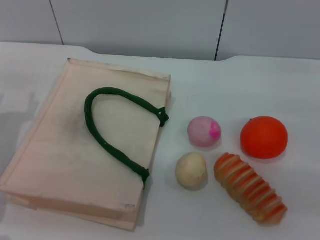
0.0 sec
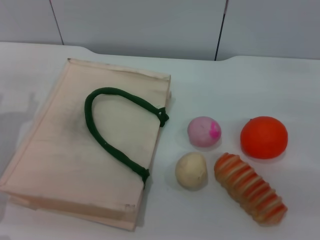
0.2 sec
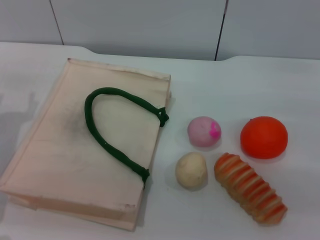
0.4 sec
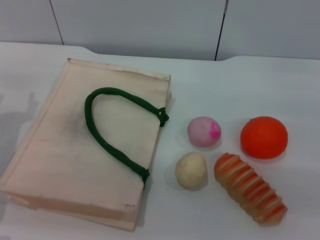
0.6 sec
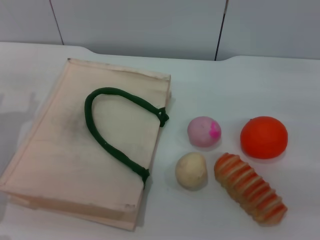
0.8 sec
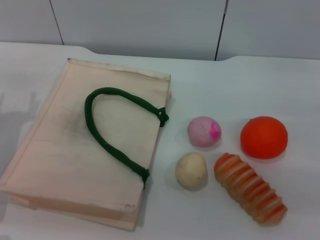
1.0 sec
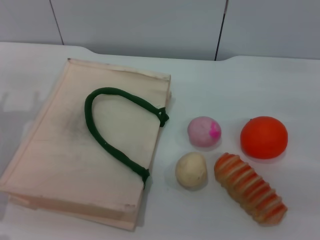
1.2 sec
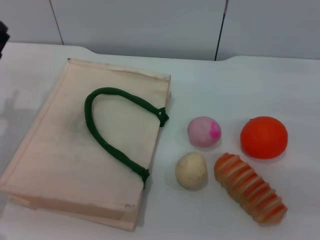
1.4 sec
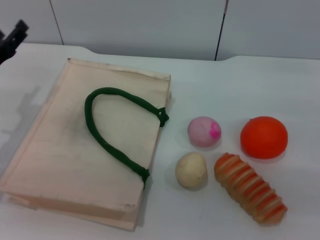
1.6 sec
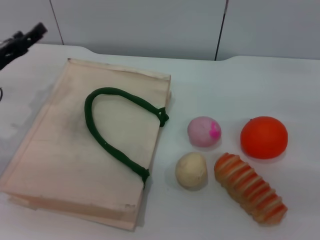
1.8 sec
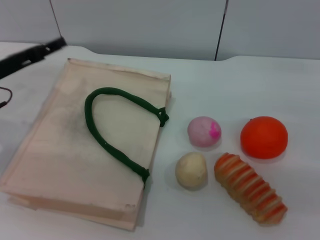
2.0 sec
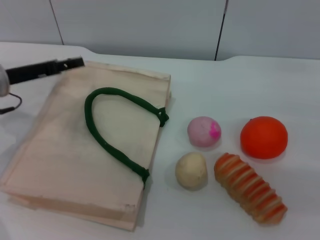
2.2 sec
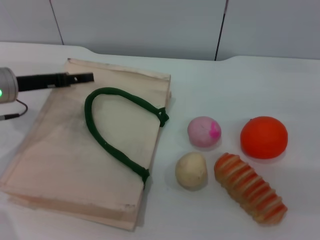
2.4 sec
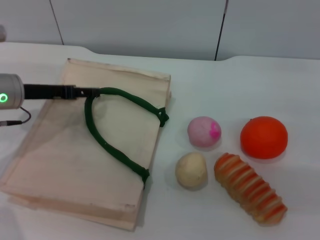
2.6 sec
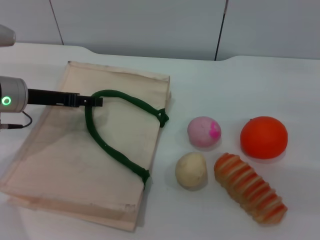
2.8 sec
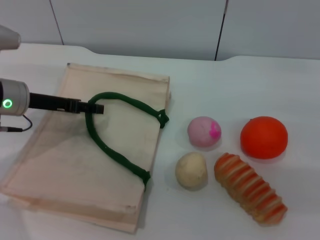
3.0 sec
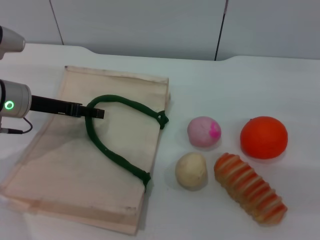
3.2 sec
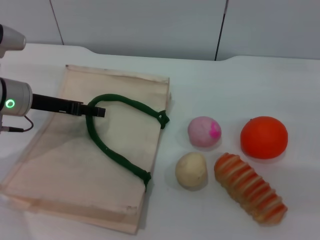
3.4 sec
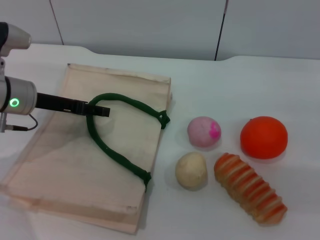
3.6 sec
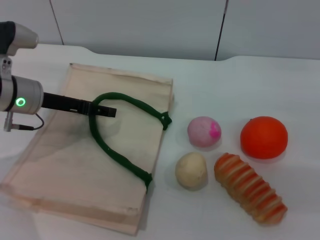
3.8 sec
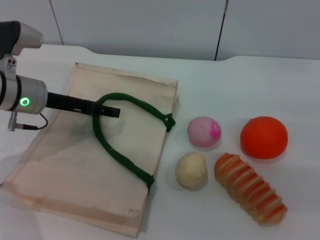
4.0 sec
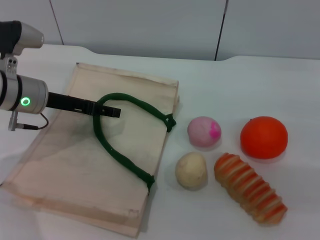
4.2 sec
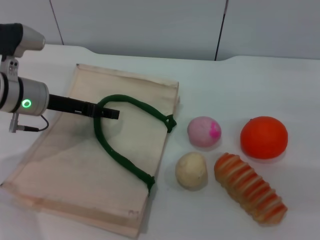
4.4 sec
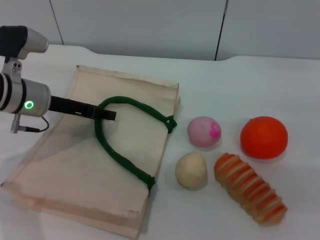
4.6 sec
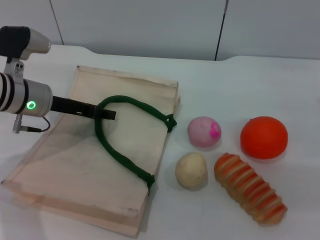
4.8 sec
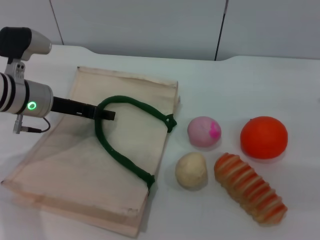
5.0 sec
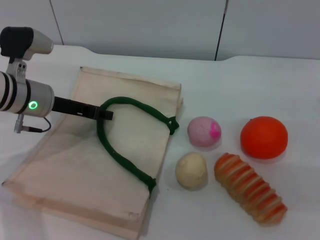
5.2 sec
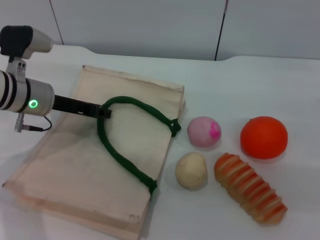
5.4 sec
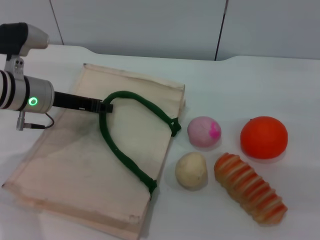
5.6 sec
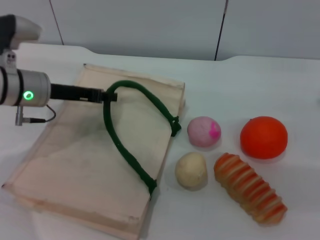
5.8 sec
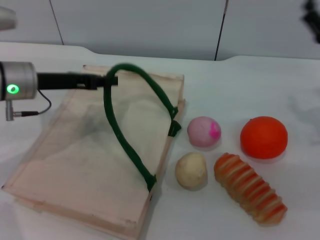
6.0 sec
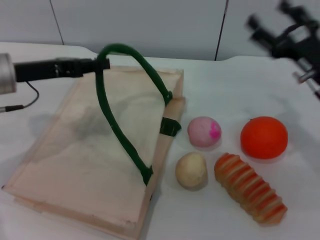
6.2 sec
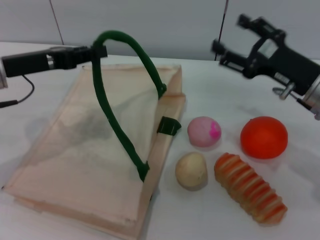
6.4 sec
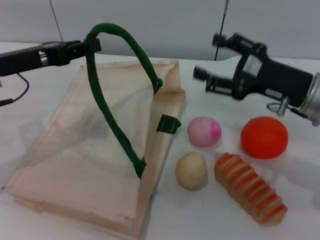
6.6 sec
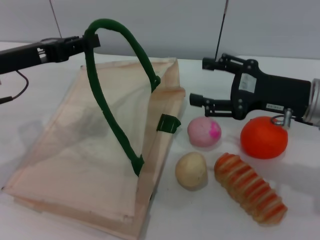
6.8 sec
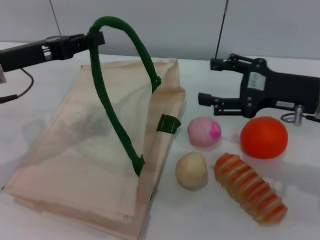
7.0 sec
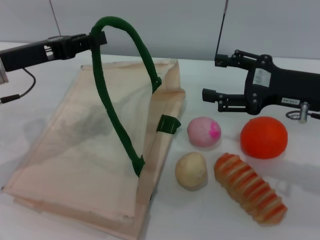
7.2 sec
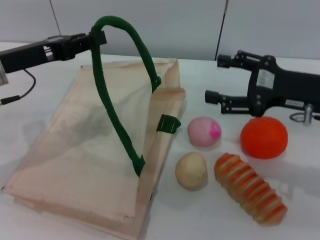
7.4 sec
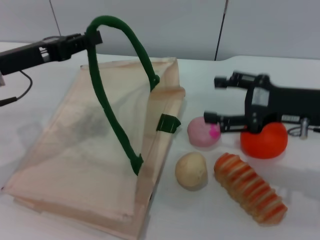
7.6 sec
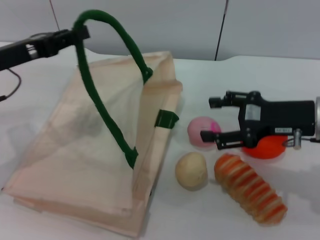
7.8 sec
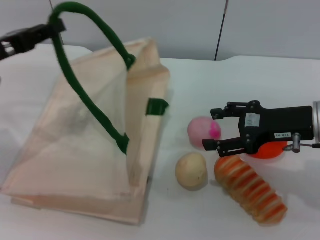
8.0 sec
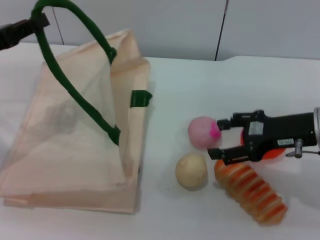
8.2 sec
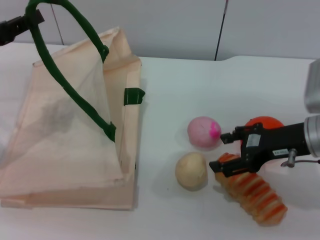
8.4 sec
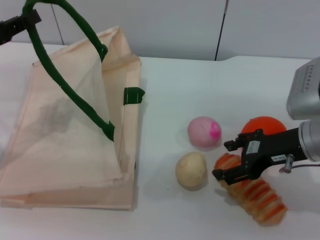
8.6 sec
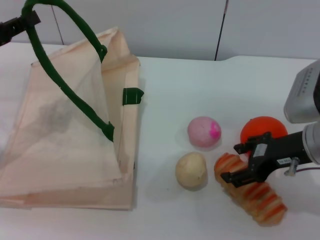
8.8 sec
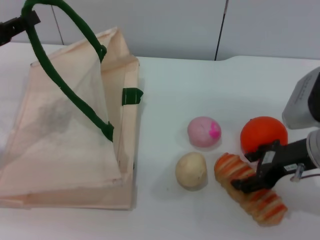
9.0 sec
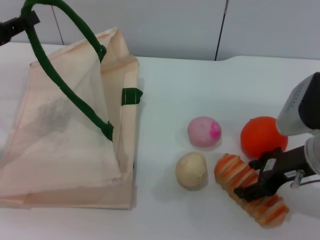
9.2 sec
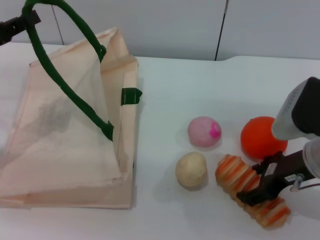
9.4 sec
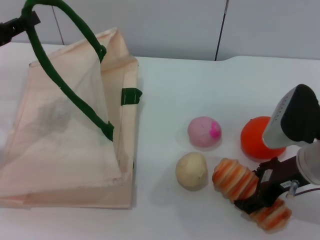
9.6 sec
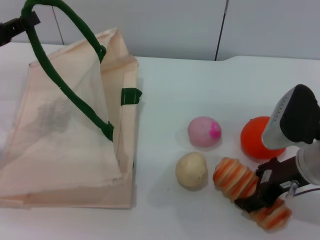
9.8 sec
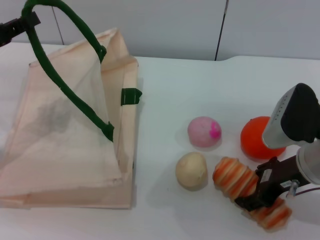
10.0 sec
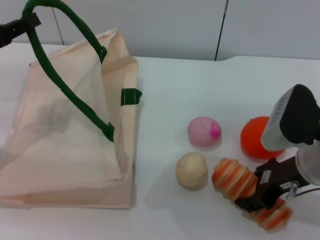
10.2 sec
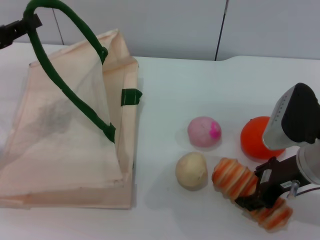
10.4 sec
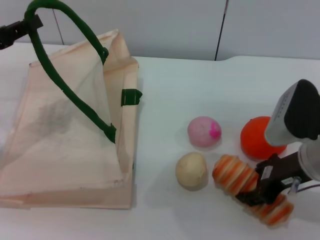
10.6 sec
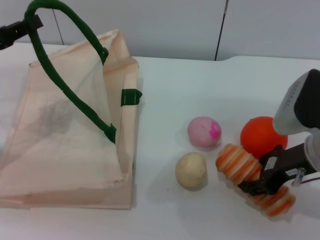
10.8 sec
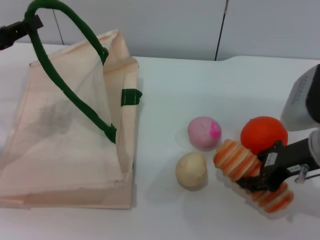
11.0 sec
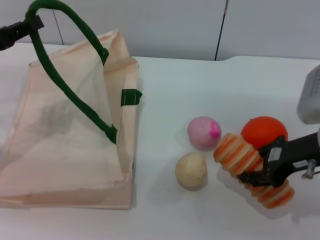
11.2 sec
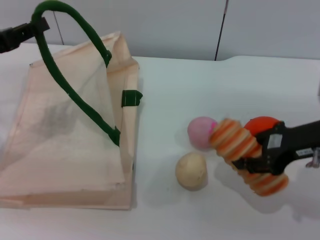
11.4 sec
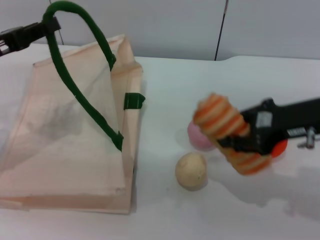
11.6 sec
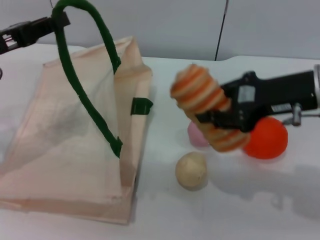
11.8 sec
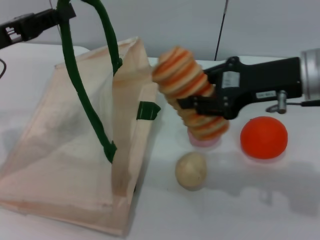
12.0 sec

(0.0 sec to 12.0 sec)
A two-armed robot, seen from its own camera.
Task of the whole recording: pick up the bread and egg yolk pastry from the table and place it in the white handbag.
Step, 0.0 sec - 6.0 sec: Lift the woven bag with the left gripper to open it.
Step, 6.2 sec - 10.8 sec: Pick up the bread with the right gripper.
1.6 sec - 3.0 sec: The left gripper changes place by approximately 5 cm.
3.0 sec - 4.4 sec: There are only small adjustments of the grippers.
4.4 sec - 6.0 sec: The left gripper closes.
6.0 sec - 7.6 sec: The right gripper shifts by some 5 cm.
7.6 sec - 9.0 sec: The left gripper goes roughly 5 cm to the left.
9.0 sec - 10.4 sec: The grippers move only a little.
10.4 sec - 12.0 sec: The right gripper shifts approximately 10 cm upward, and closes up.

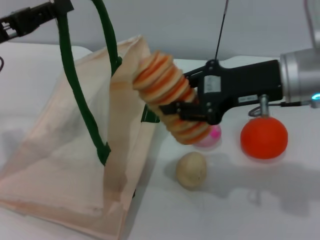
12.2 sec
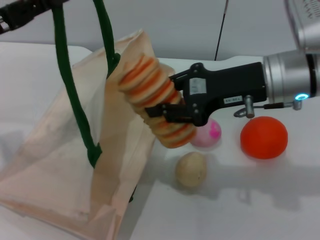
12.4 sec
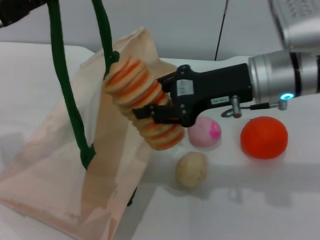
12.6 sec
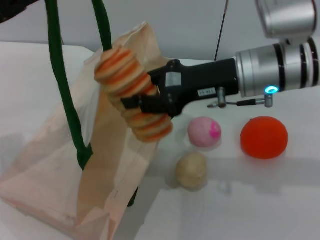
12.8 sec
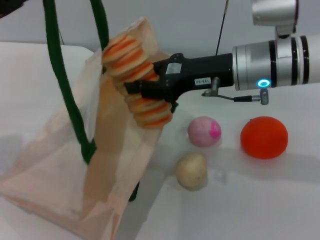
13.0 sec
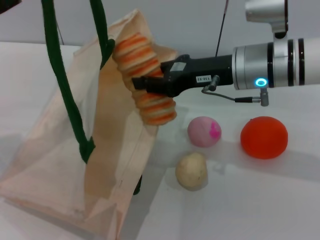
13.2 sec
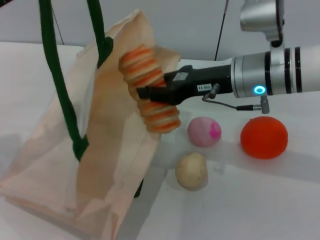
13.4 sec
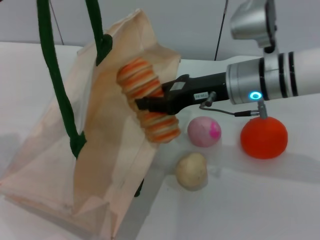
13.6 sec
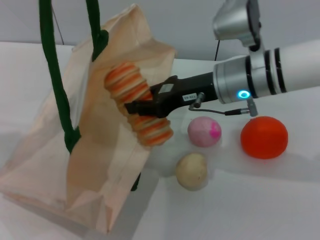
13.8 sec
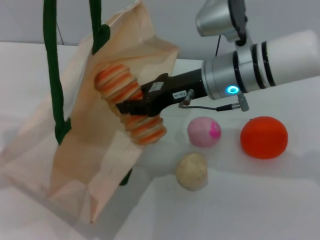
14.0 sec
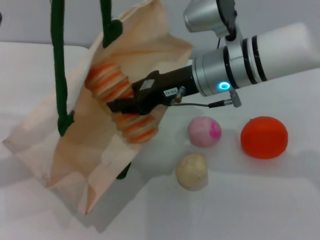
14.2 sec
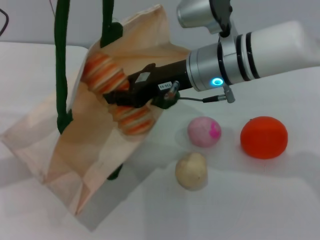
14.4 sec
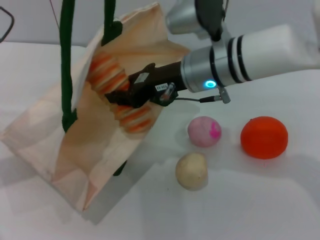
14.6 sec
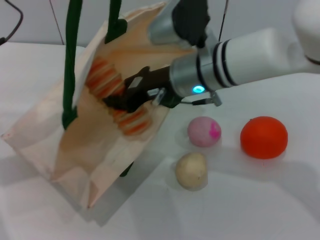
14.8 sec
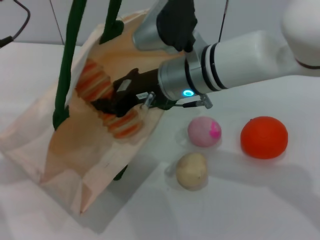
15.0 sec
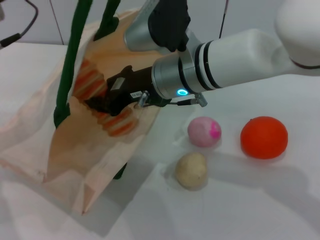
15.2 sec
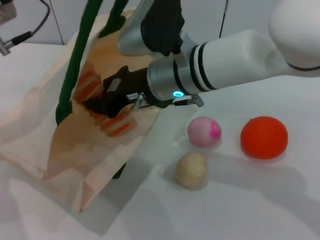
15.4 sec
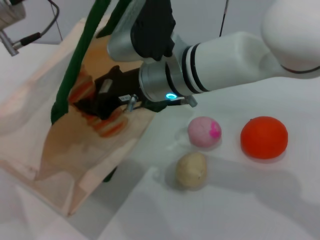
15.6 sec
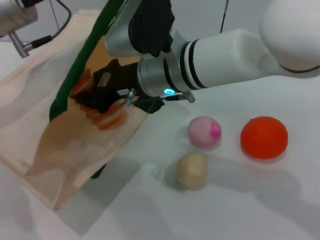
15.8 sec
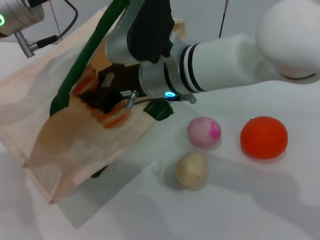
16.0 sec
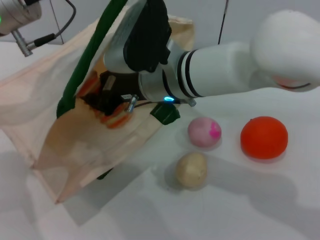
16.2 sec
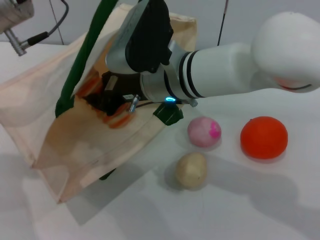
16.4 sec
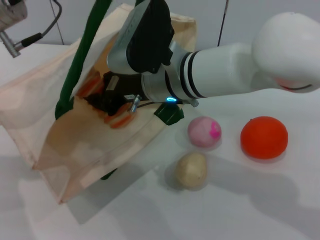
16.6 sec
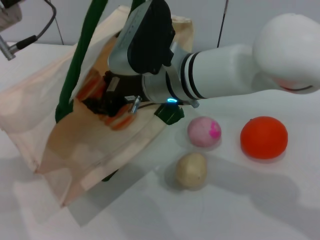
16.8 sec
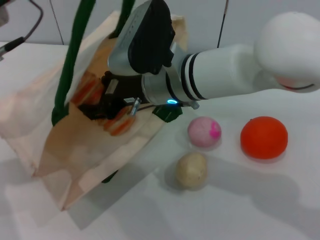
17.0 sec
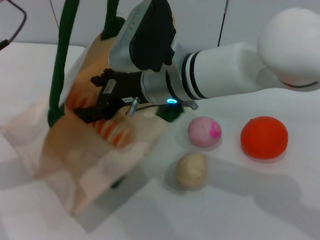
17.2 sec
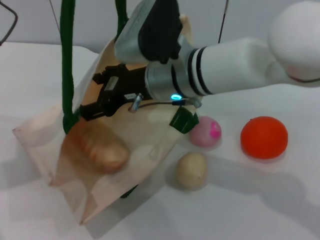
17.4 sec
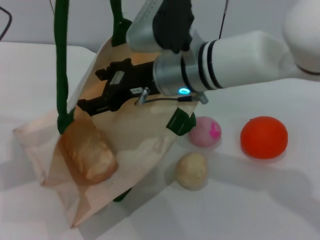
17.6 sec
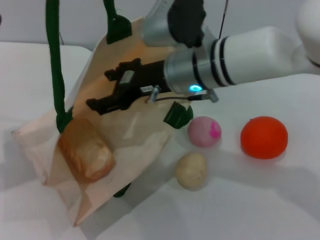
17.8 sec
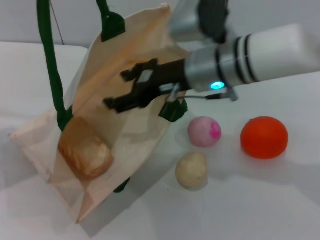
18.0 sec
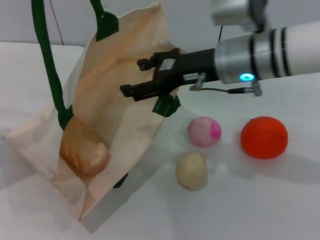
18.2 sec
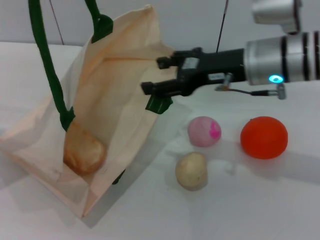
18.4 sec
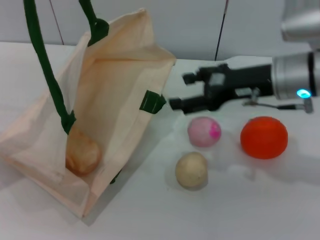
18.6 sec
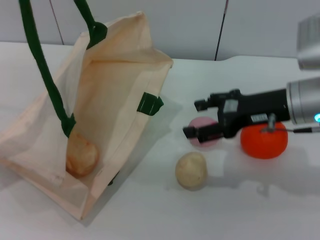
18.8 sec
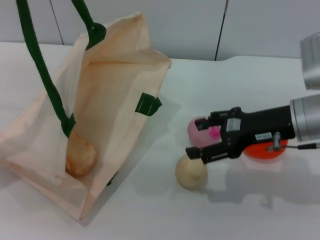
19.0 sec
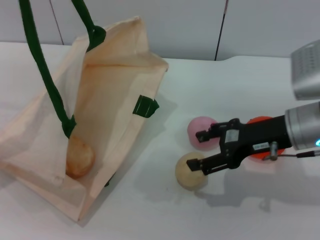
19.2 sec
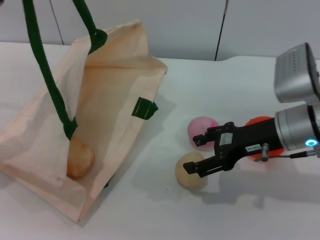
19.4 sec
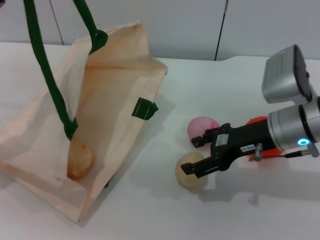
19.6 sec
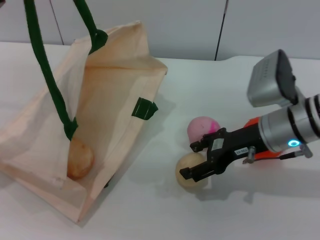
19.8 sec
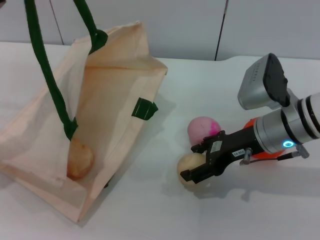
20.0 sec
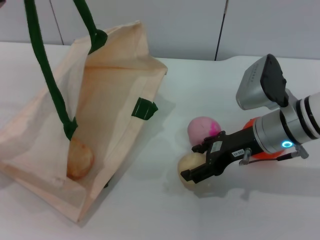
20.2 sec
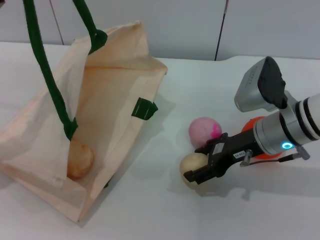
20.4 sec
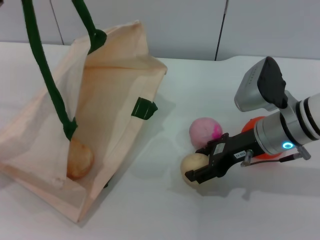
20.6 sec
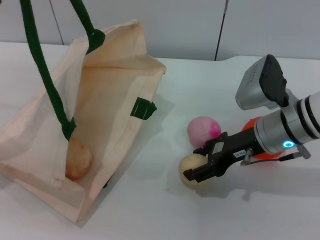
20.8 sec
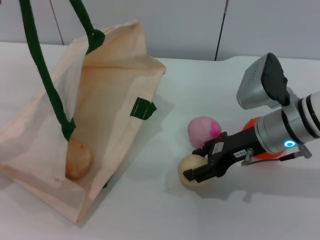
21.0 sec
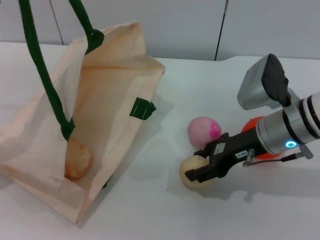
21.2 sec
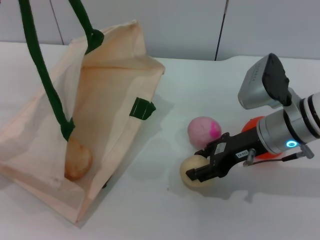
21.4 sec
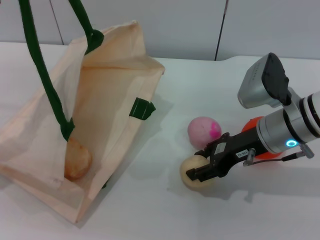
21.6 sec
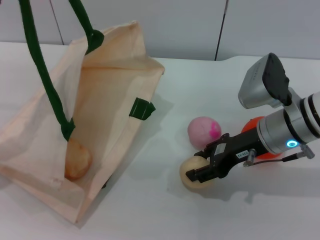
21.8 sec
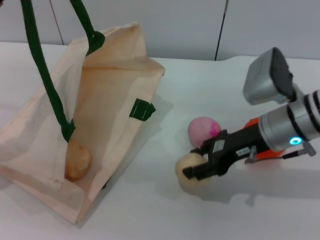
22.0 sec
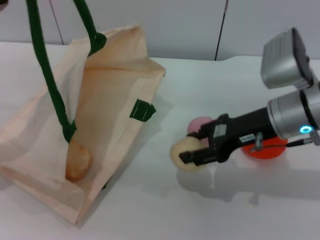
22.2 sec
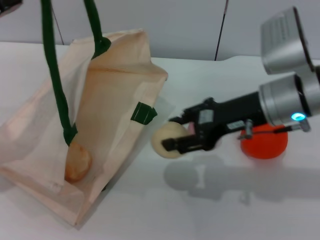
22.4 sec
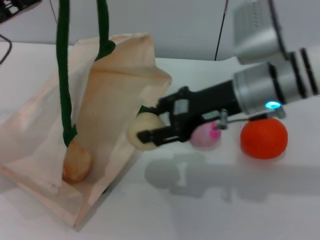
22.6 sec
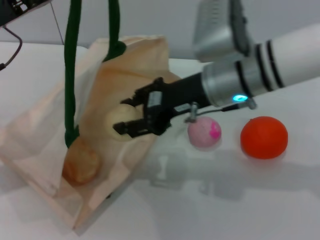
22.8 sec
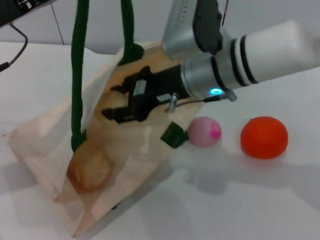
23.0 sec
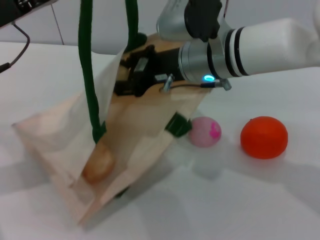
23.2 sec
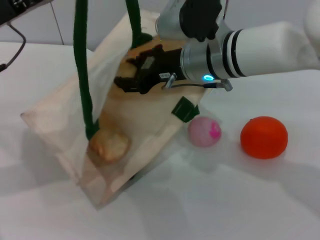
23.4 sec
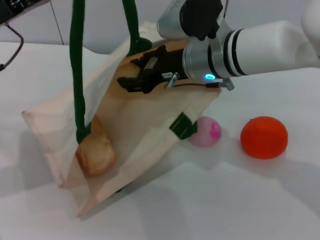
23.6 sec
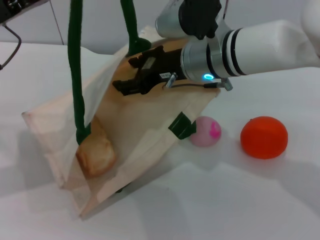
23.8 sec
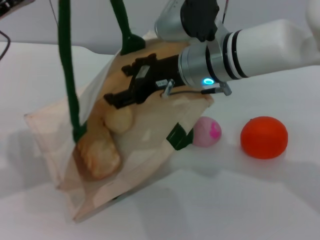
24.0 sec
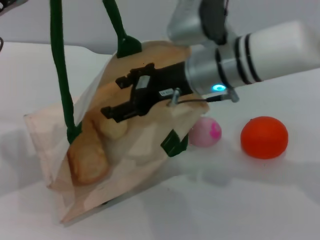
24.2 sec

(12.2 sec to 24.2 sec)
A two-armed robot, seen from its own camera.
Task of the whole recording: pick up the bread and egg yolk pastry from the table and place it in the white handbag.
Step, 12.2 sec - 17.6 sec: Place the bread into the woven bag with the right gripper.
Step, 17.8 sec - 22.0 sec: Pick up the egg yolk pastry with the right gripper.
Step, 22.2 sec - 24.2 sec: Place the egg yolk pastry into the woven bag with the right gripper.
12.2 sec - 13.8 sec: The right gripper moves to the left, roughly 5 cm.
13.8 sec - 15.2 sec: The right gripper moves to the left, roughly 10 cm, while the left gripper moves to the right, some 5 cm.
16.6 sec - 18.2 sec: The right gripper moves to the right, some 10 cm, and opens its fingers. The left gripper shifts roughly 10 cm to the left.
18.2 sec - 19.8 sec: The right gripper shifts some 10 cm downward and to the right.
19.8 sec - 21.2 sec: There are only small adjustments of the grippers.
21.2 sec - 22.6 sec: The right gripper goes approximately 5 cm upward.
22.6 sec - 24.2 sec: The right gripper moves to the left, some 5 cm, and opens.
